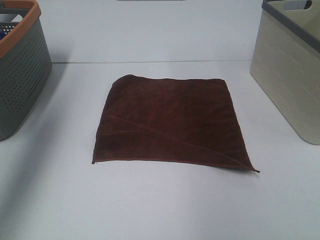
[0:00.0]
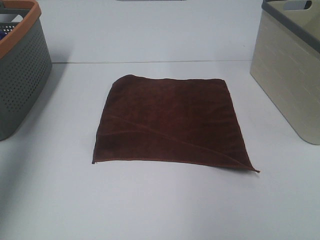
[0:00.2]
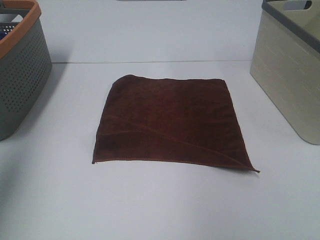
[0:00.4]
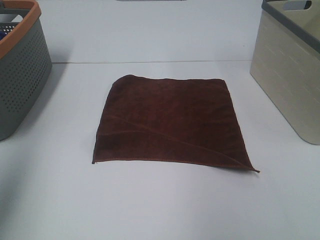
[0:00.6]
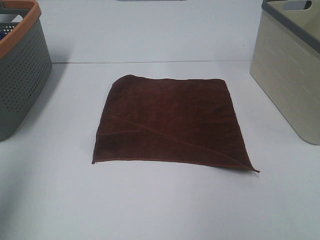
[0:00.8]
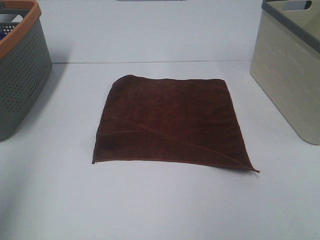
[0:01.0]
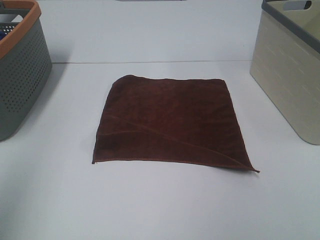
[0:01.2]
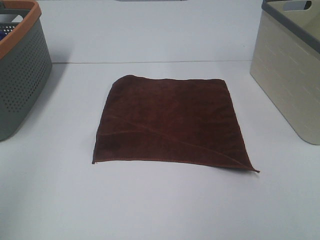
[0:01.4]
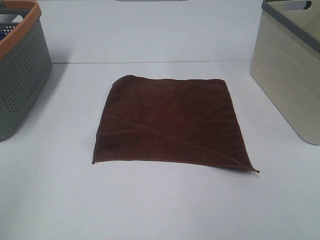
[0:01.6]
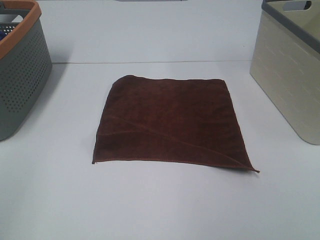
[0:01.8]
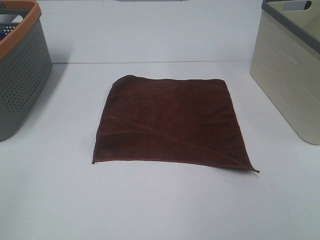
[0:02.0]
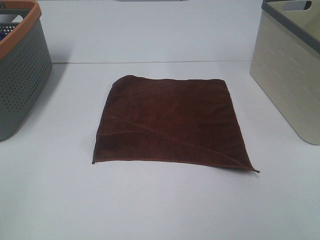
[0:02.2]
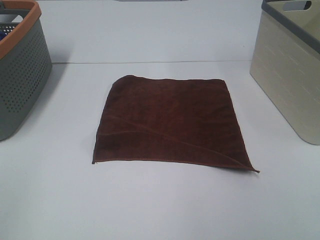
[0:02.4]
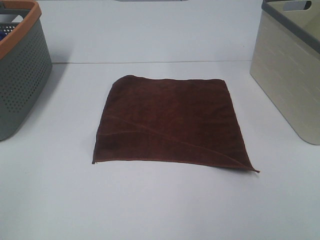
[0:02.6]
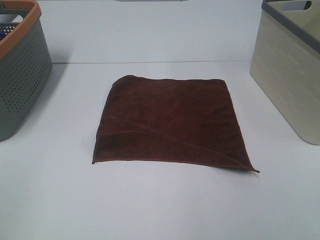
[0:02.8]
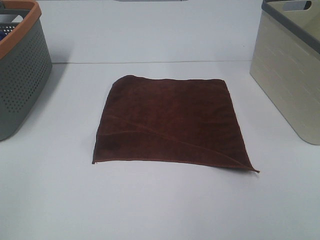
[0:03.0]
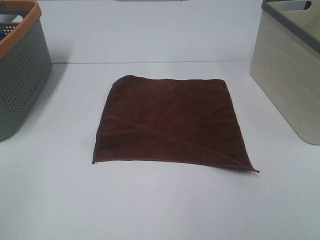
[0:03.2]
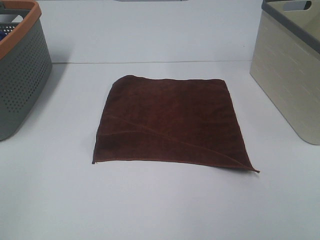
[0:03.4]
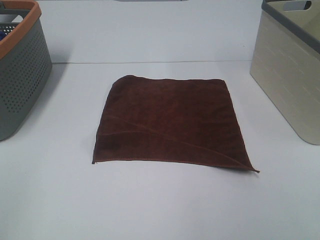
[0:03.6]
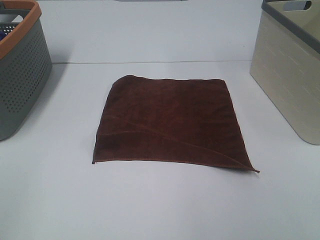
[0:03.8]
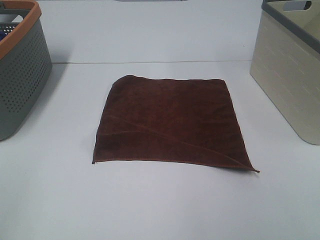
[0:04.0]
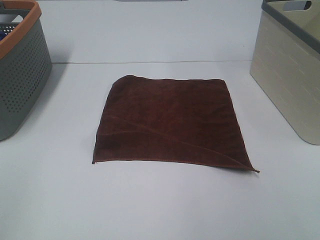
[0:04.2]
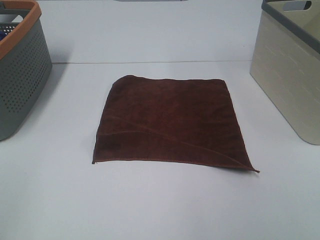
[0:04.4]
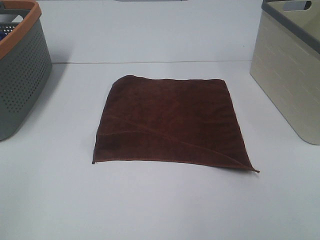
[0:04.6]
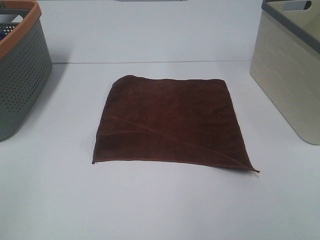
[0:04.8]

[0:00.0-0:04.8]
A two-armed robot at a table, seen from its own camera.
Task of the whole recording: Remove the towel and place it.
0:00.0 to 0:01.6: The left gripper shifts about 25 cm backward.
0:03.2 to 0:04.8: Both grippers stay put.

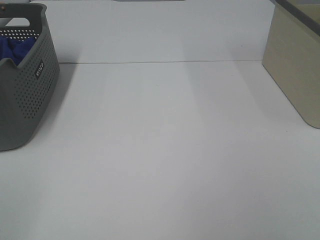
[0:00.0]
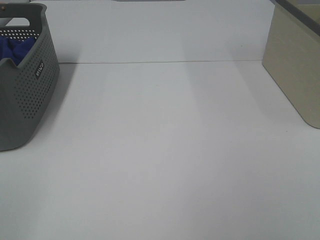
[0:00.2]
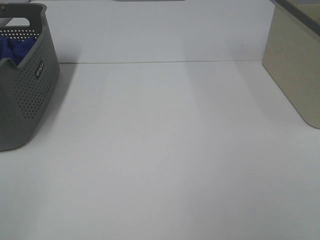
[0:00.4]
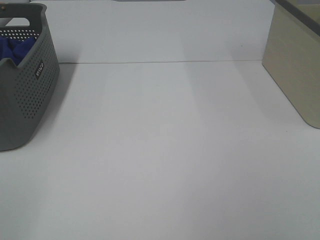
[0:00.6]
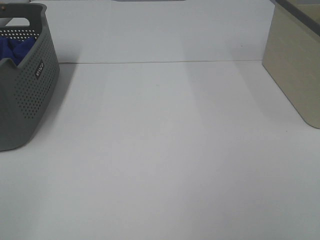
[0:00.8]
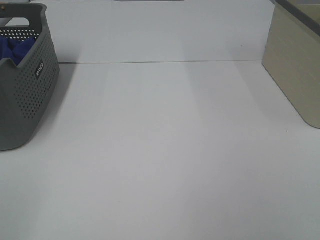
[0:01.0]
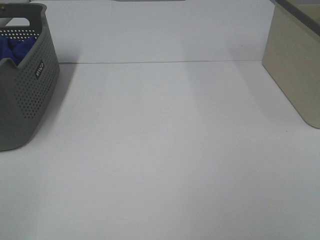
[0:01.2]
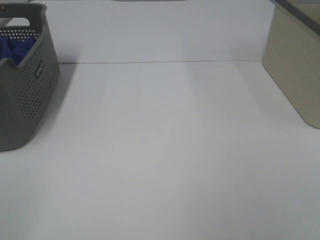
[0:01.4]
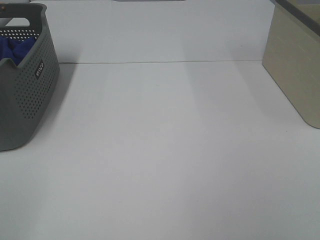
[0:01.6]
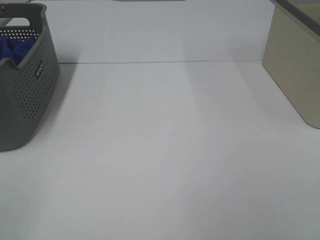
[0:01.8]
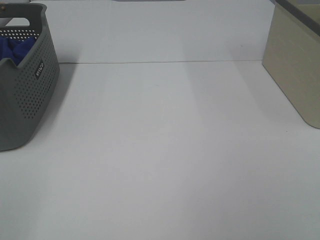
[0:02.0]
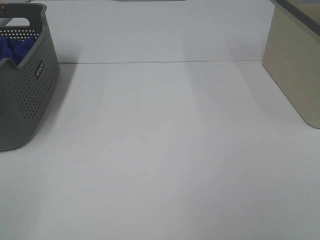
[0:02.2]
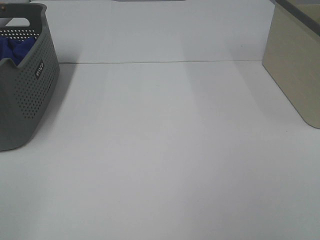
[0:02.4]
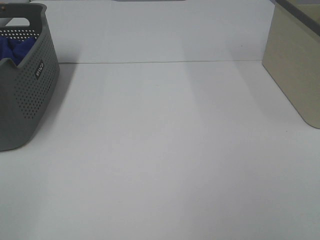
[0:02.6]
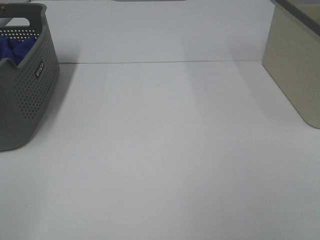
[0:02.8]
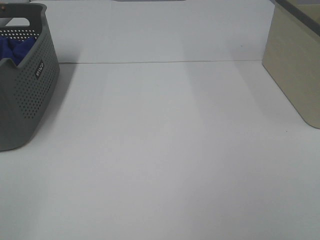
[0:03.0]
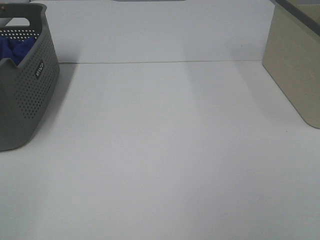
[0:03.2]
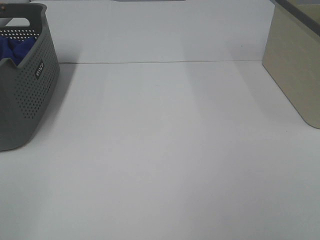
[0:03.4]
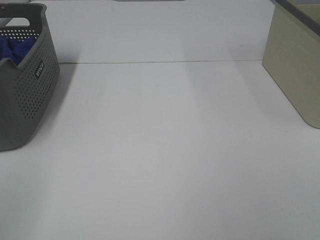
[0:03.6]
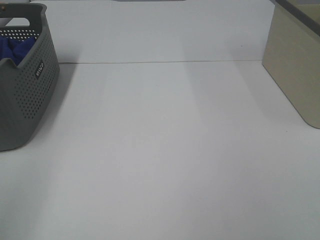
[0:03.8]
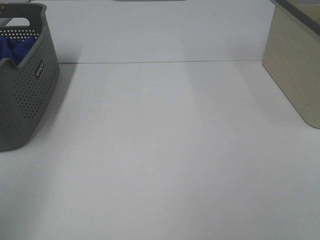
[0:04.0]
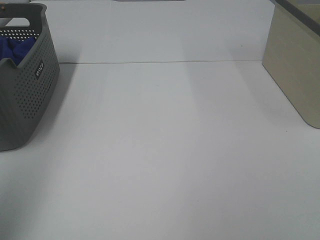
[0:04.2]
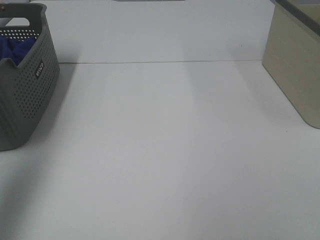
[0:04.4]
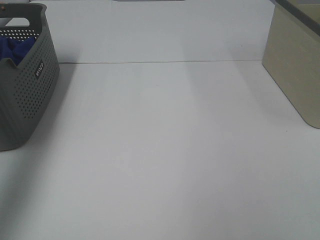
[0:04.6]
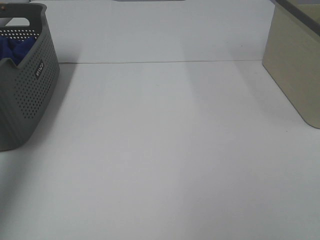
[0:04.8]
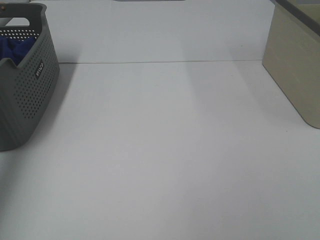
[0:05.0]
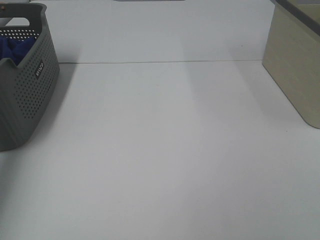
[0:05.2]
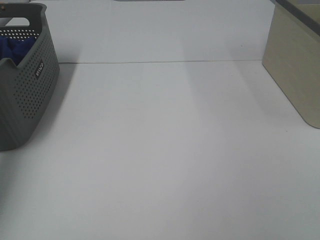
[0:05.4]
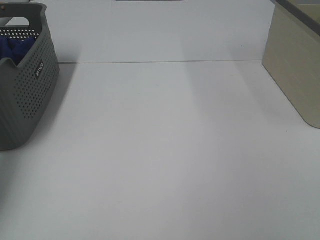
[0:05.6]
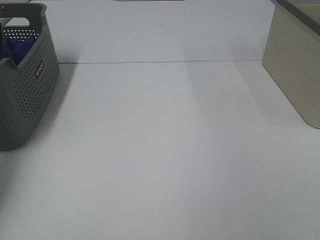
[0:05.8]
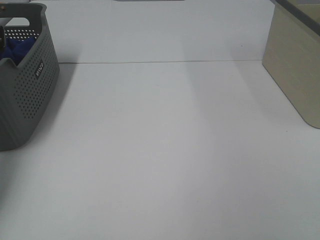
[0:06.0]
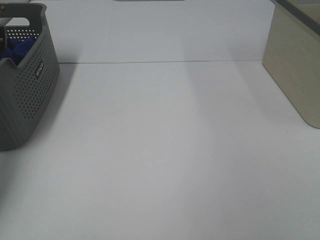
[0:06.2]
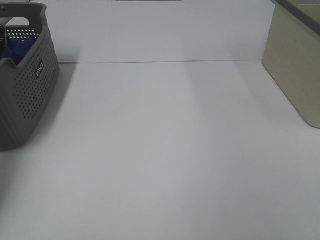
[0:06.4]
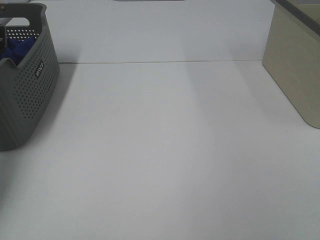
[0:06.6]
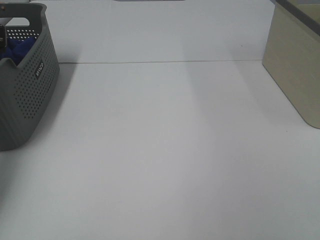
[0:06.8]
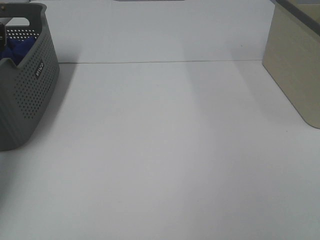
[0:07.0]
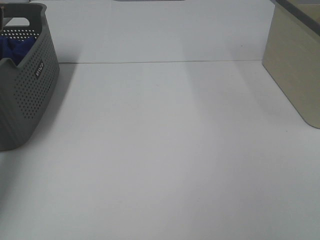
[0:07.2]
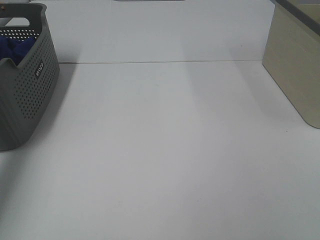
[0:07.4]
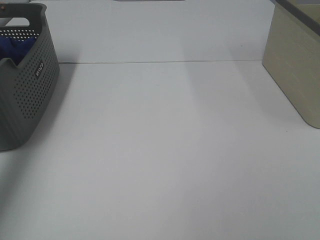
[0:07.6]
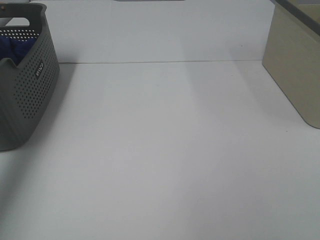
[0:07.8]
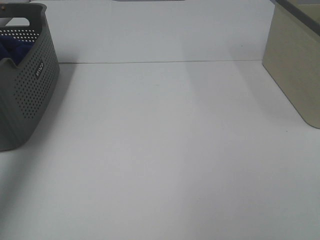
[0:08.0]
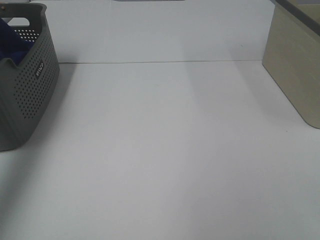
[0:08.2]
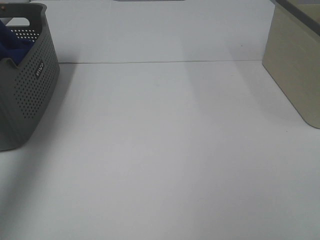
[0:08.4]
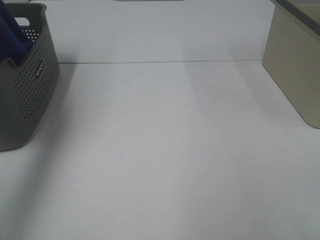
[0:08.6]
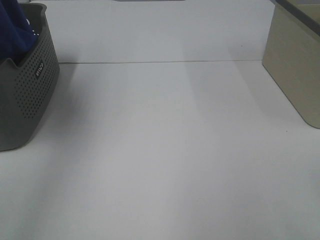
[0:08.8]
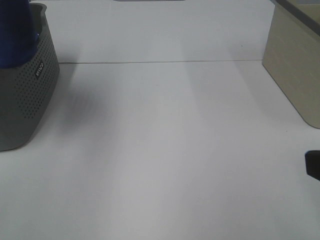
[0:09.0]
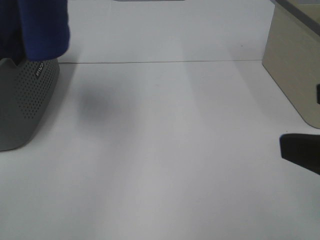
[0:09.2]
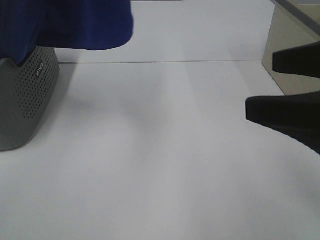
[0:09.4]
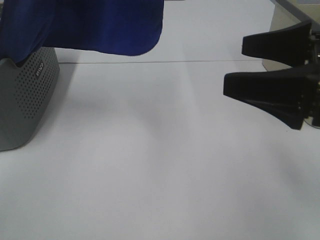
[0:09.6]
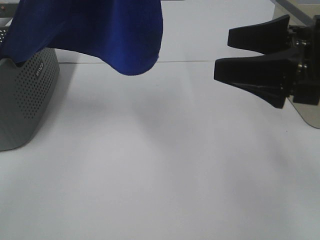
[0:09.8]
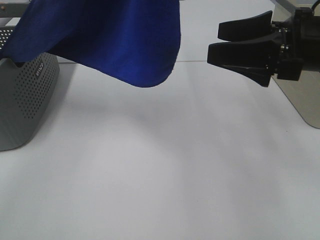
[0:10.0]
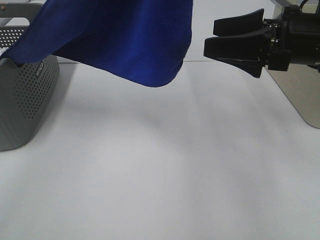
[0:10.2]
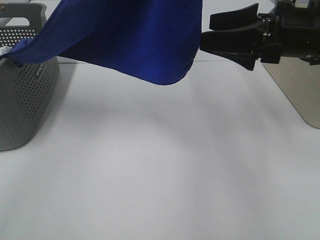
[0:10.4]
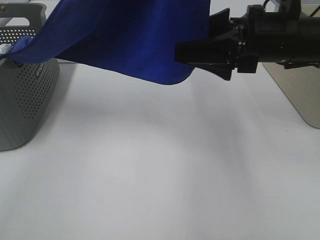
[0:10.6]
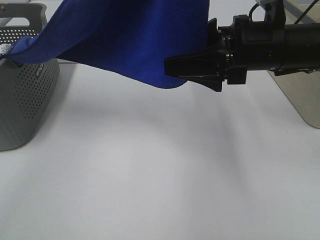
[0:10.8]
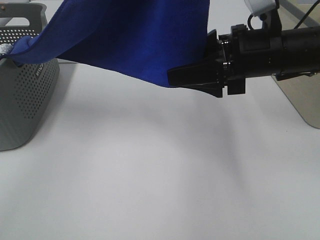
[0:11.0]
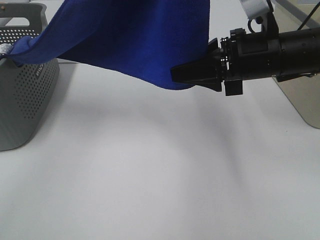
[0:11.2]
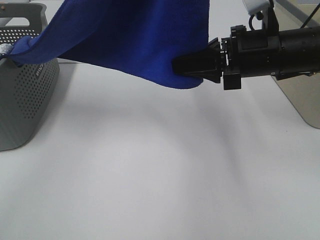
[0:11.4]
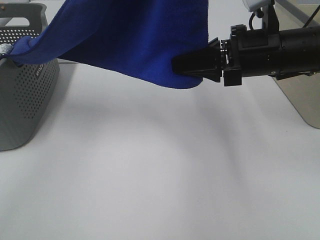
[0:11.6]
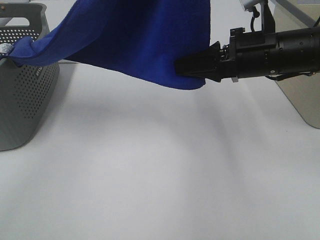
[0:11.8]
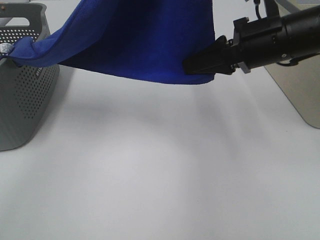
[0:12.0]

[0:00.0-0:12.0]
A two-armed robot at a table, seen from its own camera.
Task of the whole recording: Remove the towel and place it.
Step, 0:08.2 to 0:11.4: Right hand: grab a corner of the blue towel and straighten it.
0:00.0 to 0:03.0: The two grippers keep their place.
0:03.0 to 0:04.4: The left gripper is displaced forward and upward by approximately 25 cm.
0:04.4 to 0:06.0: The left gripper travels forward and downward by roughly 35 cm.
0:06.0 to 0:07.6: The left gripper shifts roughly 15 cm upward, and closes its fingers.
0:07.6 to 0:09.0: The right gripper goes some 5 cm forward. The left gripper goes some 30 cm upward, to the right and backward.
0:09.0 to 0:10.4: The left gripper moves to the right, approximately 20 cm. The right gripper is displaced forward by some 25 cm.
0:10.4 to 0:12.0: The right gripper closes up.

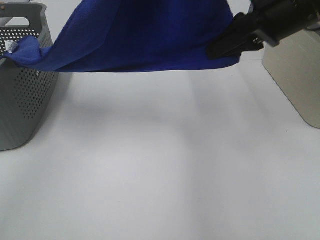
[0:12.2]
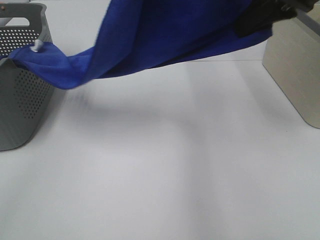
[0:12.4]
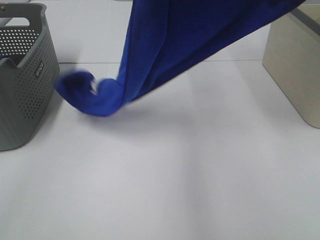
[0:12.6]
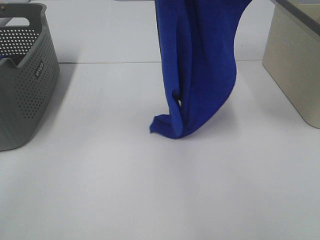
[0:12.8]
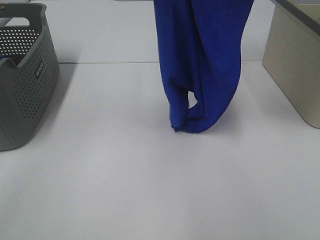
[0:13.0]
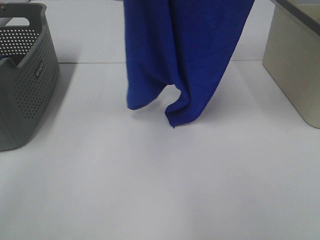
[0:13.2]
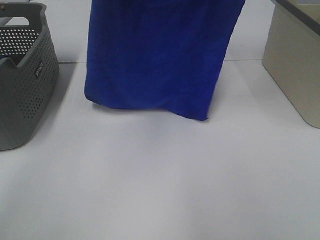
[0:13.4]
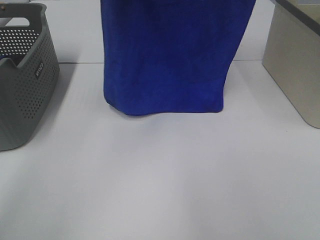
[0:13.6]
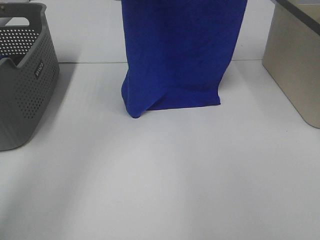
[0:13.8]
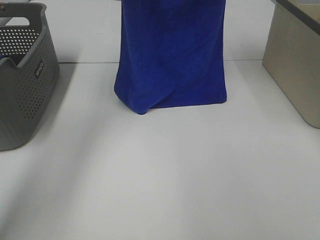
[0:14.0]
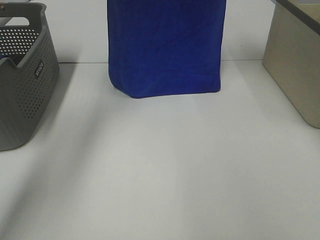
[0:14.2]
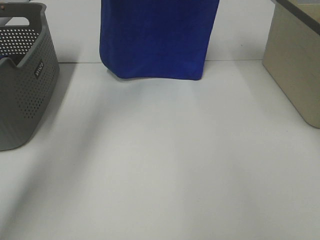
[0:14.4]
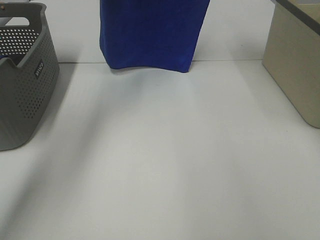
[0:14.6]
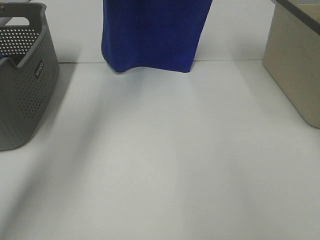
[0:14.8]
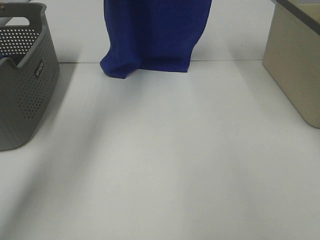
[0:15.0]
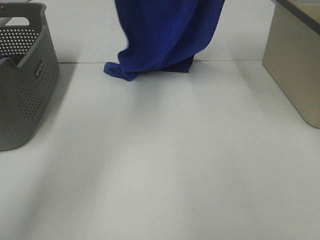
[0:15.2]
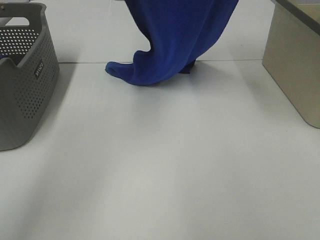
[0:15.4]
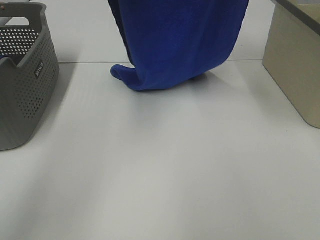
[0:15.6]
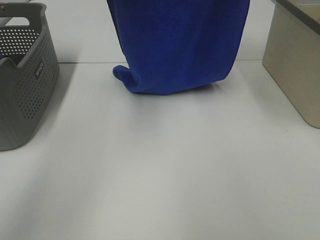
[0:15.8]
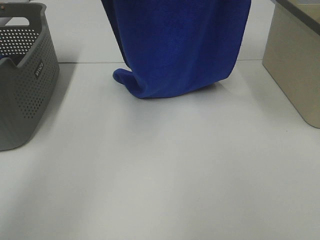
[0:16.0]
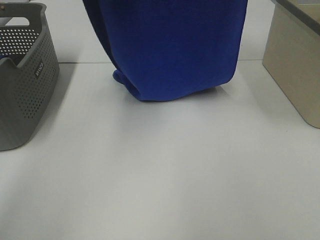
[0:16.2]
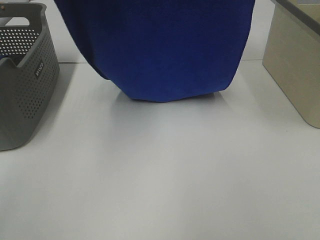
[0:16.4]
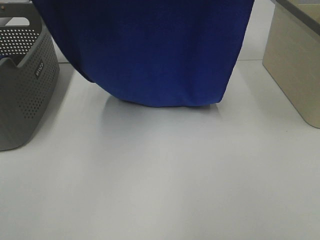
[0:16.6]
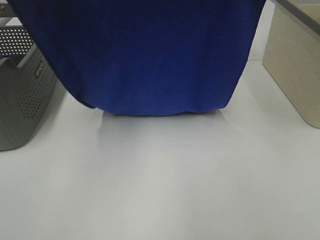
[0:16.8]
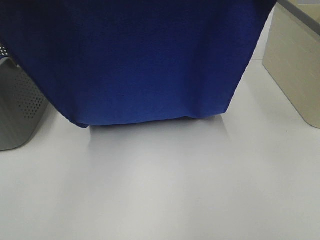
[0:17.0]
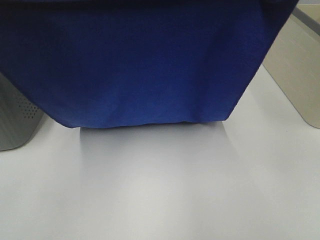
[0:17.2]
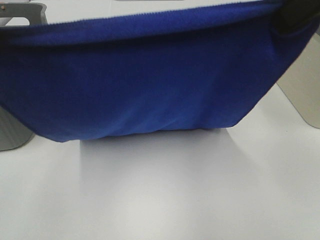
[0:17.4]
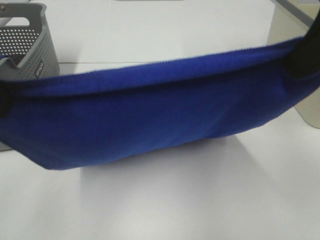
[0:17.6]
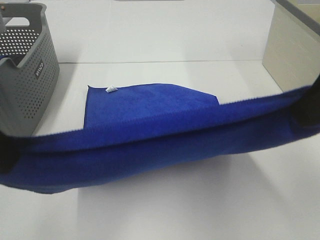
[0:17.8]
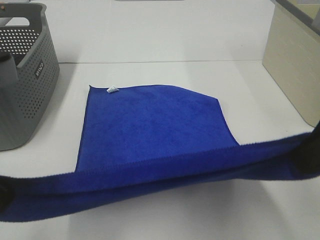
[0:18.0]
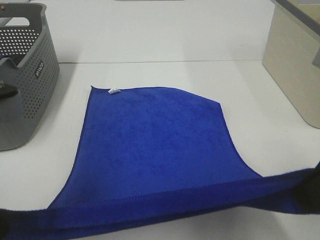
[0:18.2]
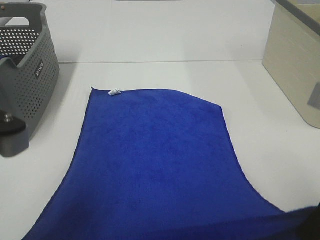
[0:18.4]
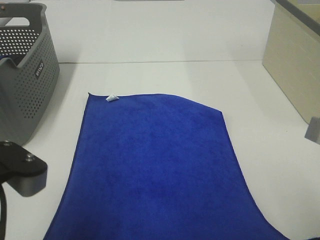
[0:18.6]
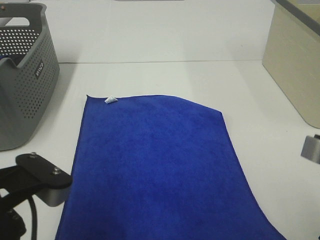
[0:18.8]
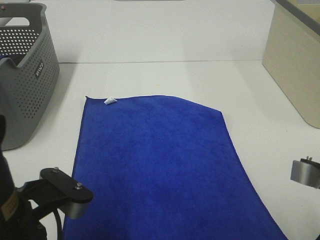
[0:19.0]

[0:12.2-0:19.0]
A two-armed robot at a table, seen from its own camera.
Task of the whole recording: Remove the towel and place it.
Step, 0:12.2 to 0:16.6: Left hand: spread the blue towel flat on the table.
Step, 0:12.2 to 0:16.6: Right hand: spread the blue towel flat on the table.
0:12.2 to 0:13.6: The right gripper travels upward by roughly 20 cm, while the left gripper shifts some 15 cm forward and to the left.
0:13.6 to 0:15.0: The right gripper moves forward, approximately 10 cm. The left gripper heads forward and downward, covering some 15 cm.
0:15.0 to 0:16.2: Both grippers move backward, approximately 15 cm.
0:16.2 to 0:17.6: Both grippers travel together backward and downward, approximately 20 cm.
0:17.6 to 0:19.0: The right gripper shifts roughly 20 cm downward and backward; the left gripper goes roughly 15 cm downward.
